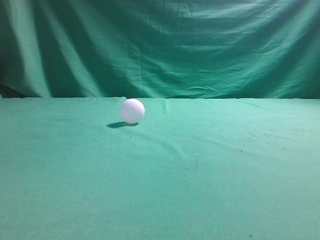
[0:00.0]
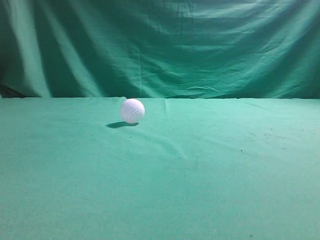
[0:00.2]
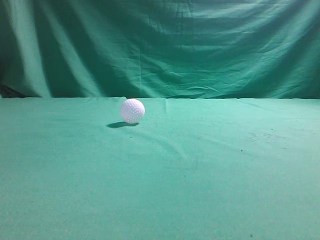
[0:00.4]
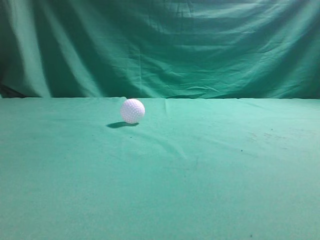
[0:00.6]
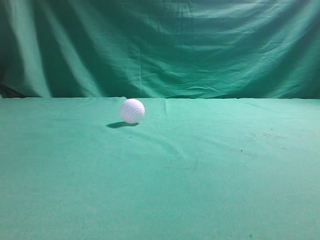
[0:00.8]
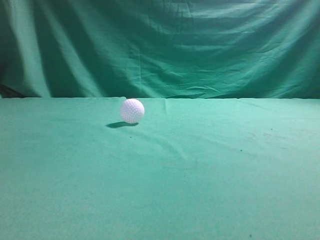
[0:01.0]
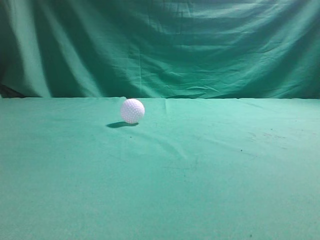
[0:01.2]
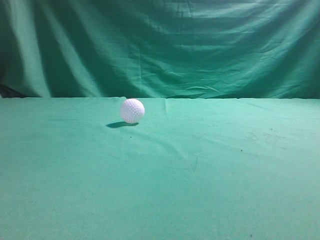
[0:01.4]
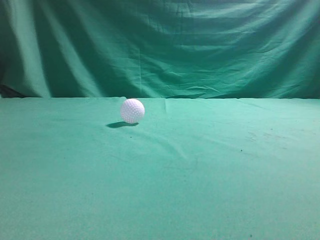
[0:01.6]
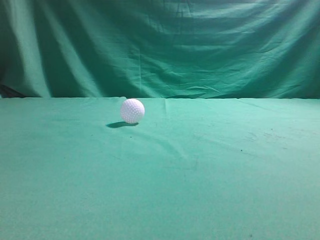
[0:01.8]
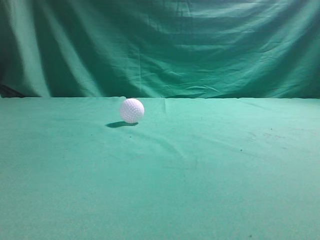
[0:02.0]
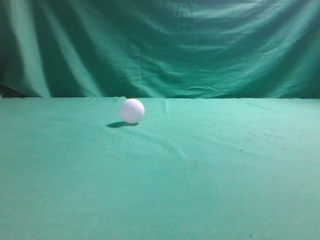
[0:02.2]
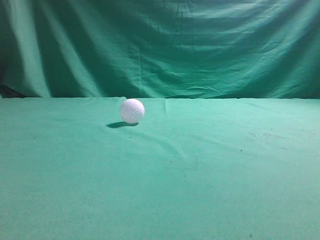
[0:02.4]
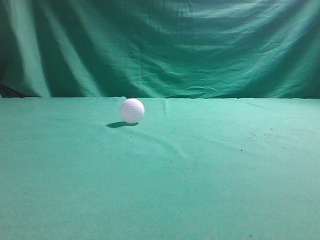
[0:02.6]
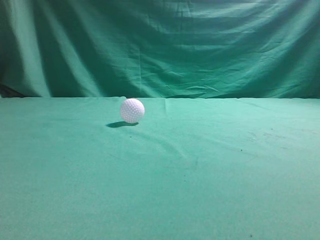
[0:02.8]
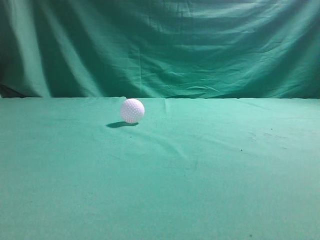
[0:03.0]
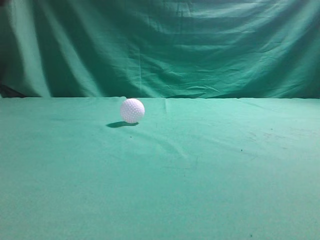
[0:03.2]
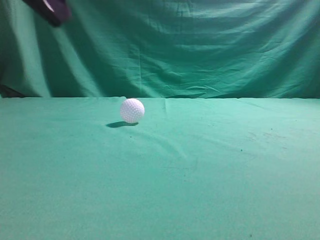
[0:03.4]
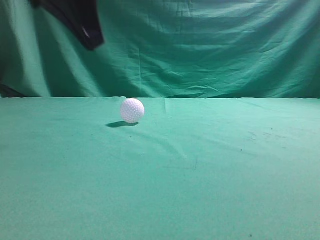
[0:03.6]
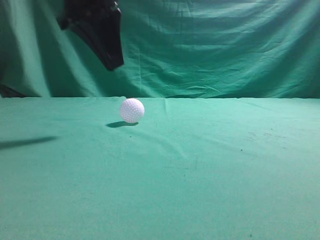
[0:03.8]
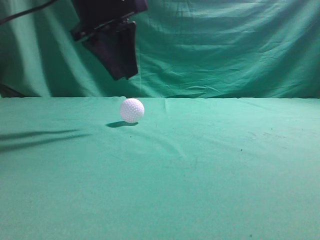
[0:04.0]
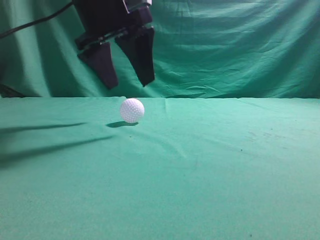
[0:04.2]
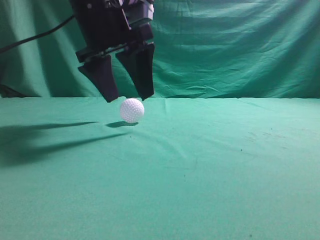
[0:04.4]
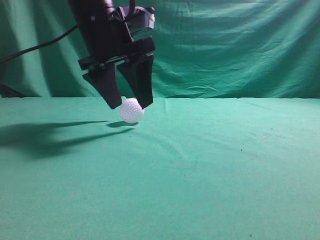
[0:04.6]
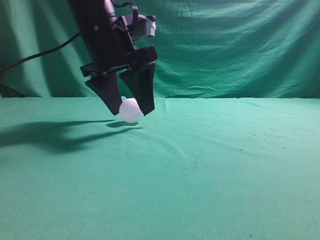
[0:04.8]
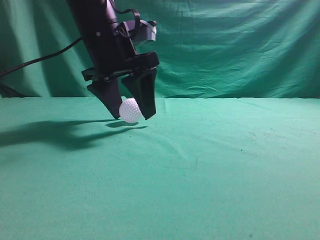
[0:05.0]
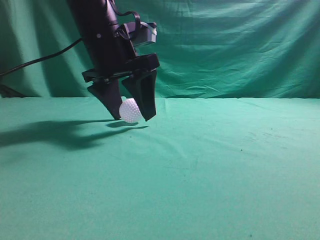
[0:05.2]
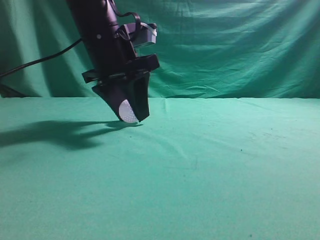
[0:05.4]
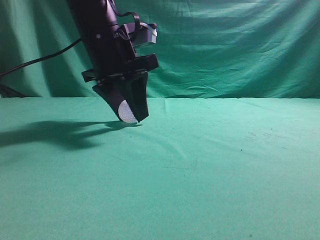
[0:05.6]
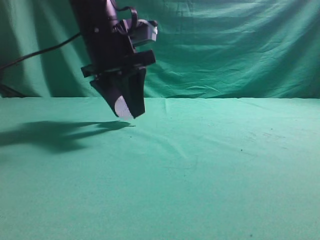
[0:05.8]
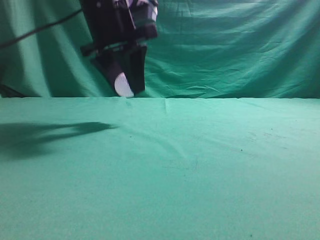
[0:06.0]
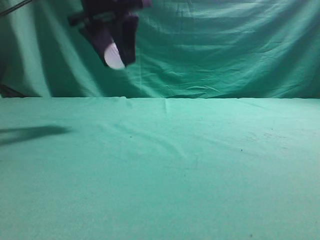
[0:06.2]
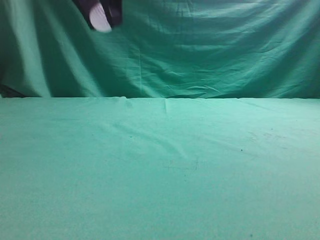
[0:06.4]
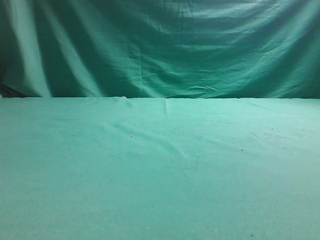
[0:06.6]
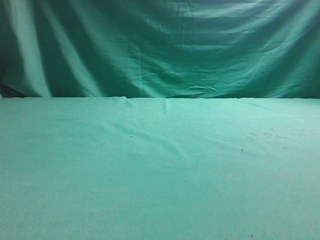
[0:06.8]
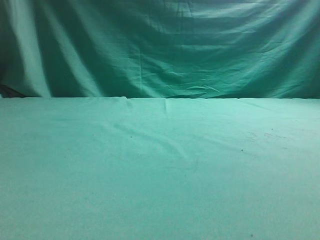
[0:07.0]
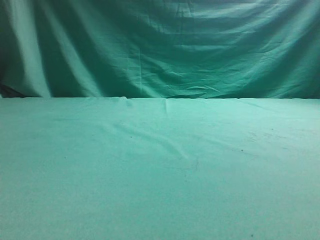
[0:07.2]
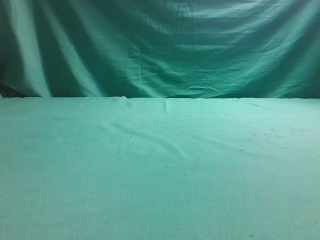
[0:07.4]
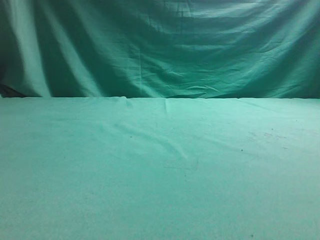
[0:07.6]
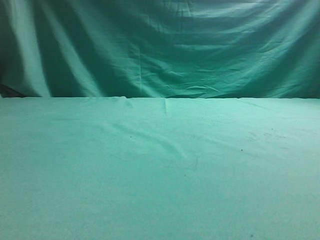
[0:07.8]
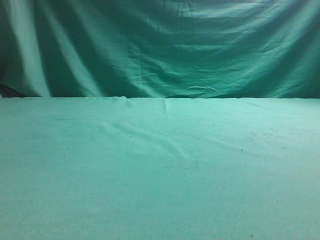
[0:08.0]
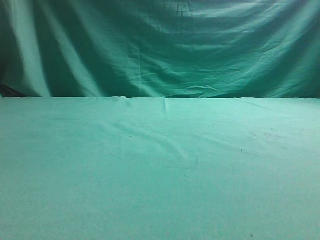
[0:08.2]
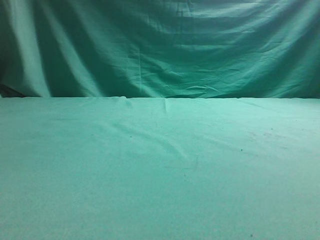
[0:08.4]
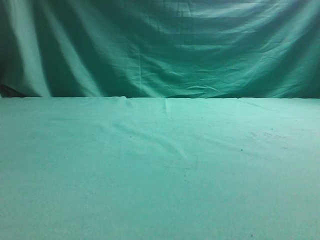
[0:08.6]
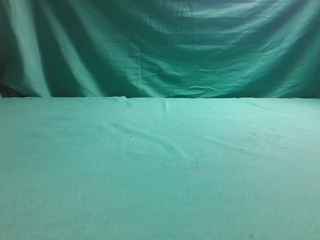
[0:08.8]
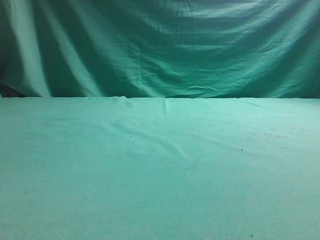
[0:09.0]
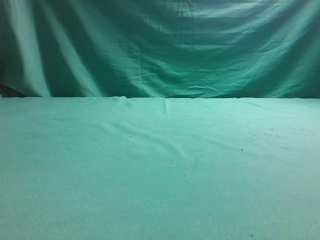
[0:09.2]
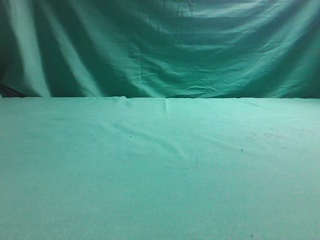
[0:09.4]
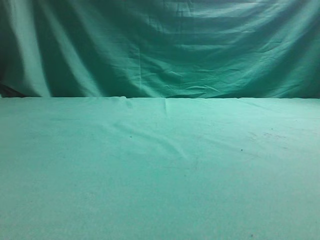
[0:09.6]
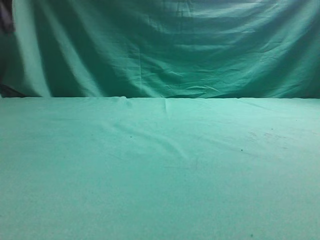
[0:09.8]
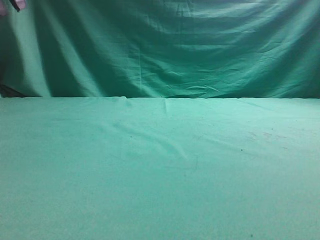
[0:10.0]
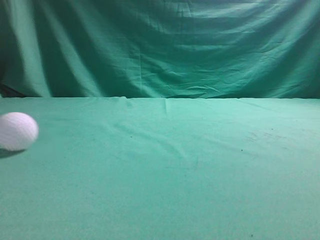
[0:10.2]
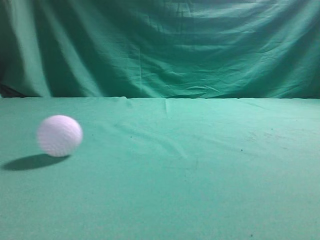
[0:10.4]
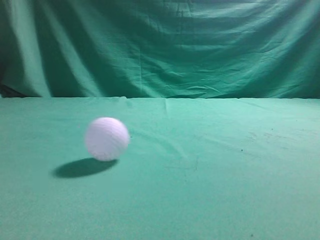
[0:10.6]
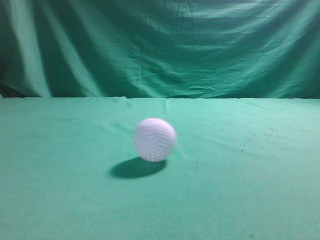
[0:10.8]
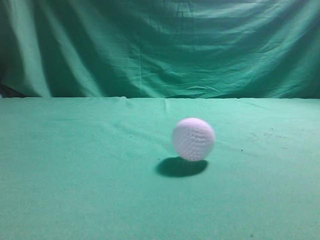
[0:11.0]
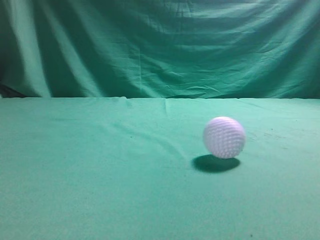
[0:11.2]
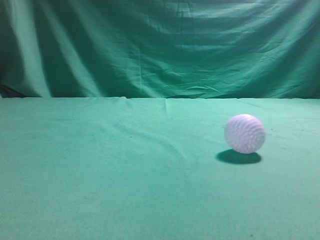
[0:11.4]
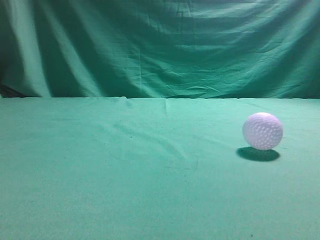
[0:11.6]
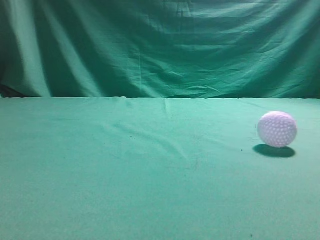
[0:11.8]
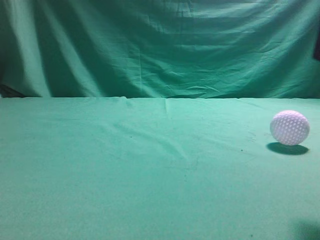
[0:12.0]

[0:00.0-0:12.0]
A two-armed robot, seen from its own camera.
Task of the whole recording: pick up the ball and place it on the plate, then pick up the ball from the plate and put it in the center of the table.
Step, 0:00.0 to 0:06.0: Grab the spherical object with your left arm.
Step, 0:06.2 to 0:09.6: Place the sphere on the white object.
0:03.0 to 0:04.4: The left gripper is displaced forward and to the right by roughly 25 cm, and opens.
0:04.4 to 0:06.0: The left gripper closes up.
0:06.0 to 0:07.6: The right gripper moves upward, roughly 10 cm, while the left gripper moves to the left and backward, some 25 cm.
0:09.0 to 0:10.4: The left gripper goes about 20 cm upward, and closes.
0:10.4 to 0:12.0: The right gripper travels forward and to the left by approximately 15 cm, and opens, while the left gripper shifts approximately 25 cm backward and downward.

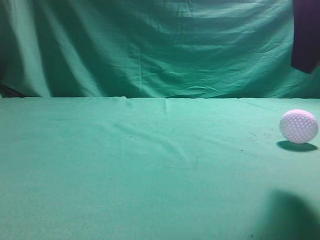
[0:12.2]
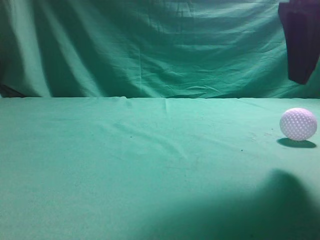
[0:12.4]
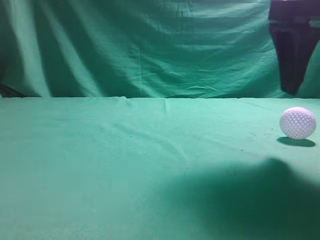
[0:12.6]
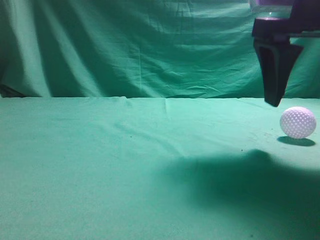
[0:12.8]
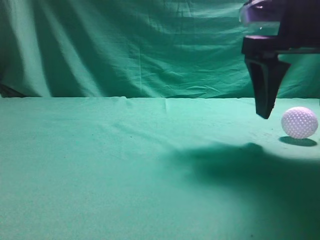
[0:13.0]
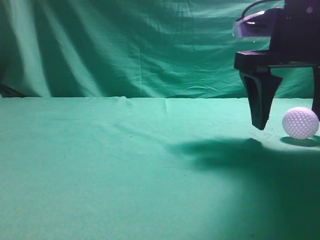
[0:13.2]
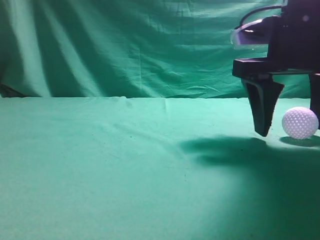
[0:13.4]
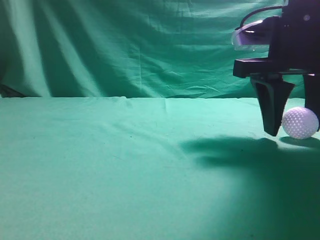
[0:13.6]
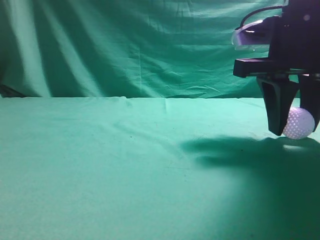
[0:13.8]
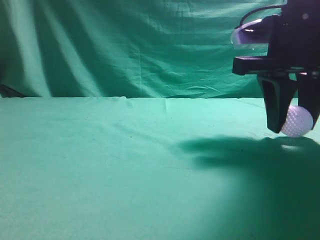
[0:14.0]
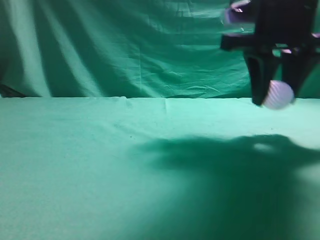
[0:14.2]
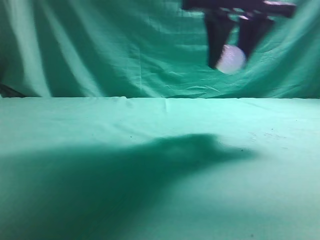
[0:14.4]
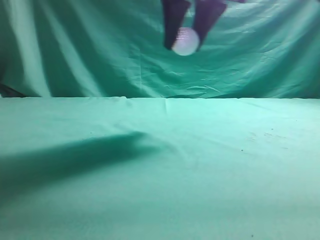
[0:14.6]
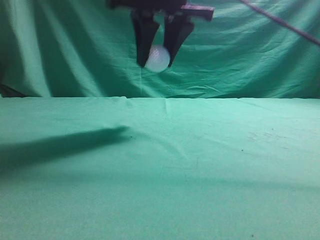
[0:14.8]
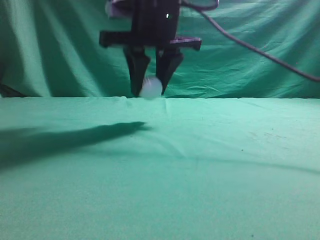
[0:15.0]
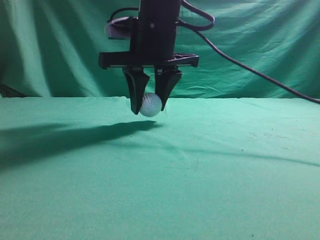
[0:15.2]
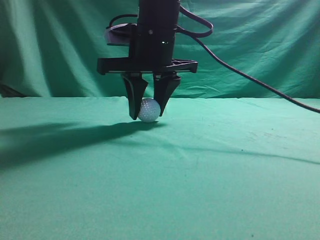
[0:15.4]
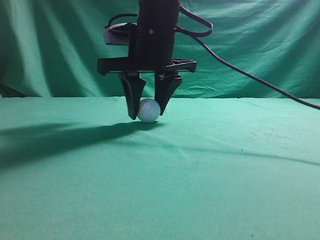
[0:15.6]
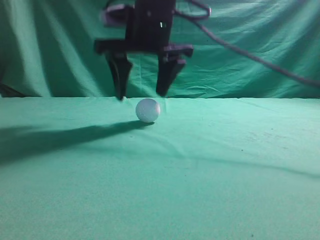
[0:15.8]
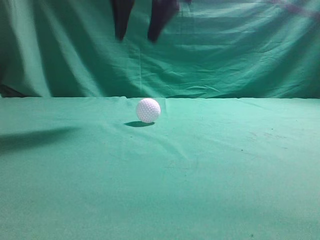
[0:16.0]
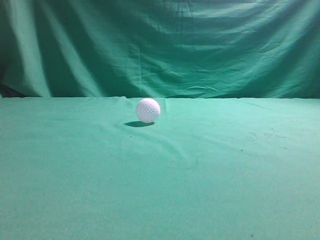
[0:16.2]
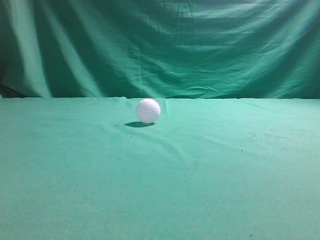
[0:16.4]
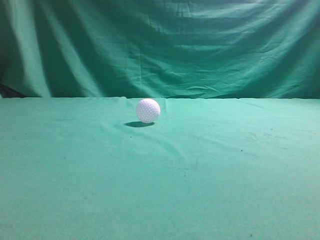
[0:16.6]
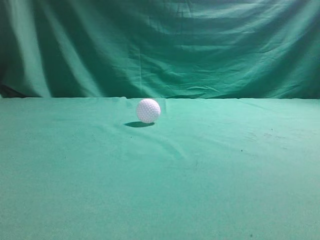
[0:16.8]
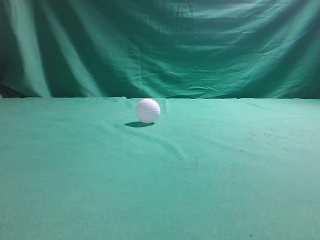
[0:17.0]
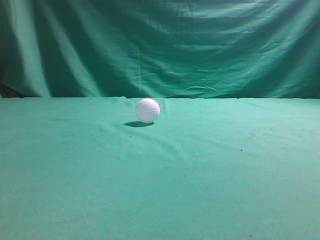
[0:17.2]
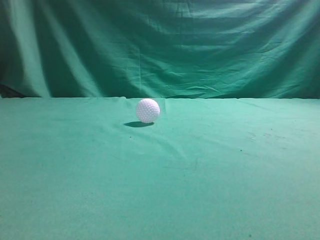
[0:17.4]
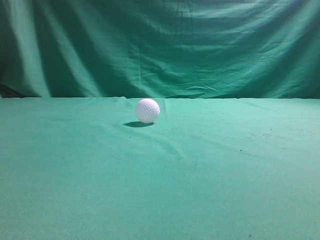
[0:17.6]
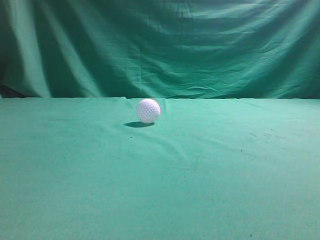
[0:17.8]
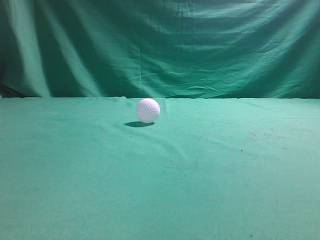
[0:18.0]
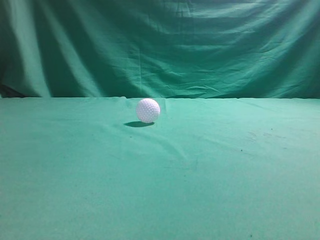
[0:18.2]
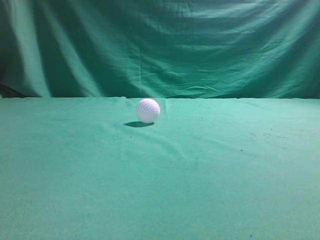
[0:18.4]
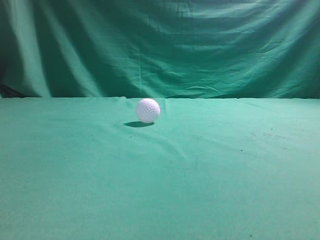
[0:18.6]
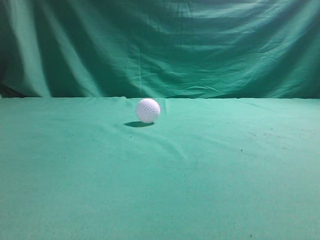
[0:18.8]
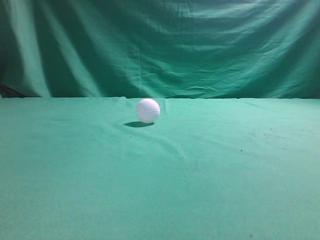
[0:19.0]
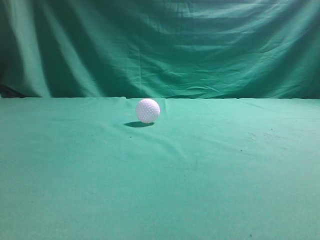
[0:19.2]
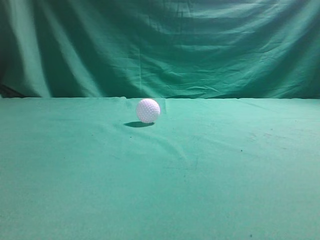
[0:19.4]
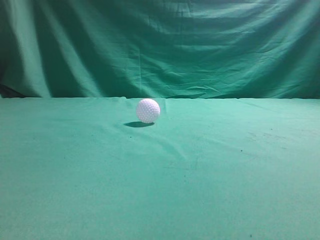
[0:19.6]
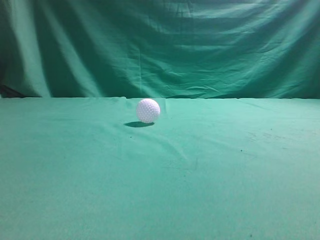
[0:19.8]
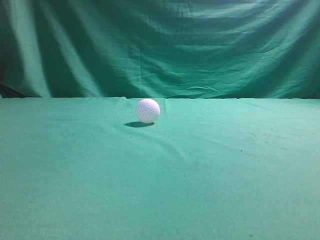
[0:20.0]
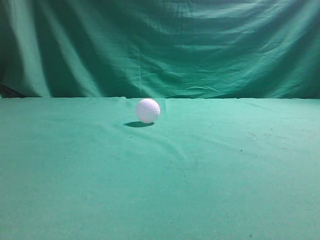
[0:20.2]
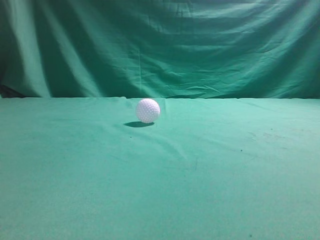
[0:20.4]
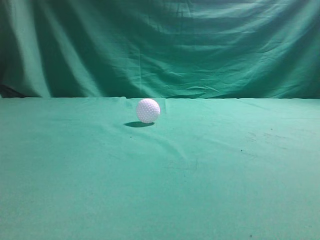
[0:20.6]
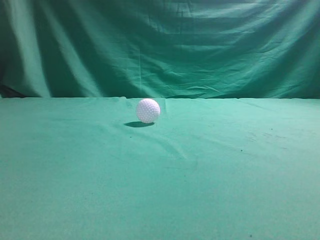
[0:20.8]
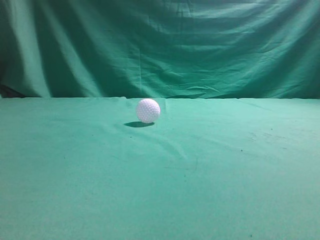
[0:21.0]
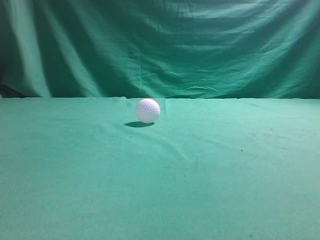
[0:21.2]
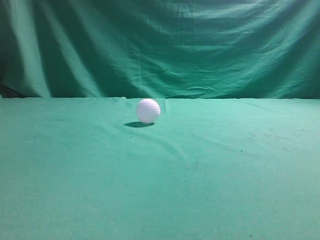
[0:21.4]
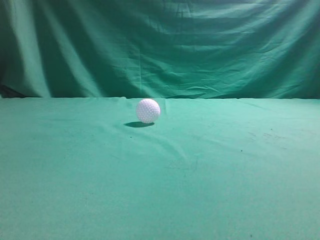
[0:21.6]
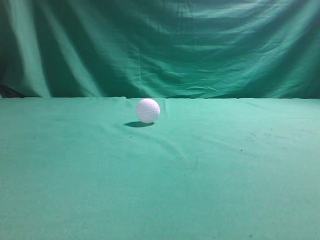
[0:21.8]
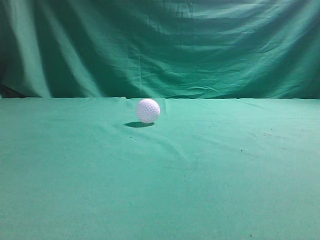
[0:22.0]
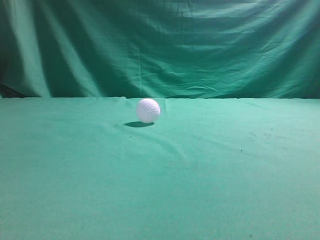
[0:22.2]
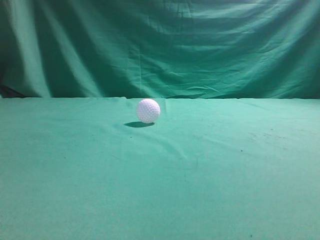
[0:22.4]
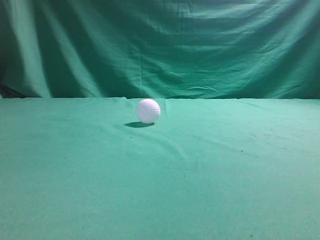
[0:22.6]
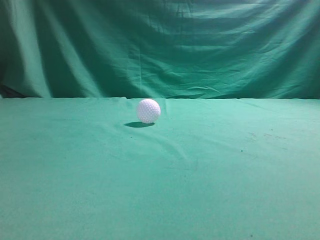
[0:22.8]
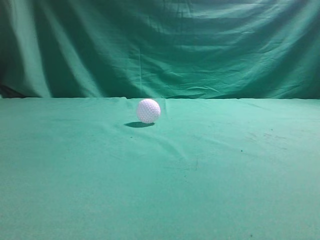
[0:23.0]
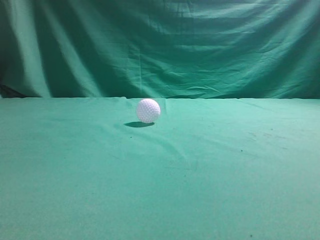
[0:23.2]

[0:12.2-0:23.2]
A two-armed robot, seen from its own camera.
Task of the whole recording: pick up the ball and place it on the plate, then pick up the ball from the plate and put it in the center of the table.
Step, 0:14.2 to 0:15.8: Put the picked-up object on the table.
0:12.2 to 0:13.8: The right gripper shifts some 10 cm forward and downward, and closes.
0:13.8 to 0:15.4: The right gripper shifts about 20 cm to the left and forward.
0:15.4 to 0:17.0: The right gripper moves upward, backward and to the right, some 40 cm, and closes.
